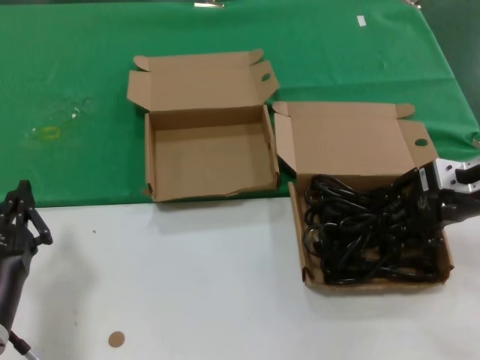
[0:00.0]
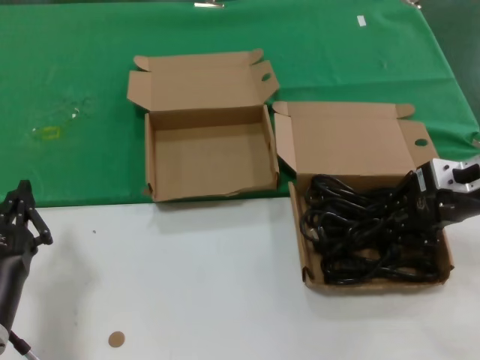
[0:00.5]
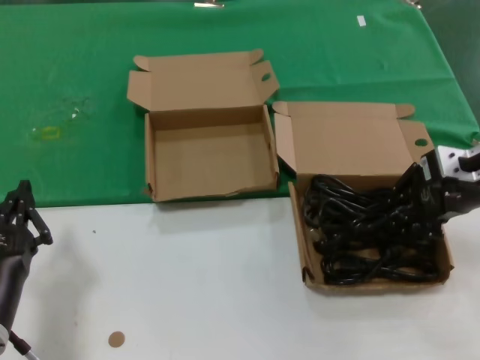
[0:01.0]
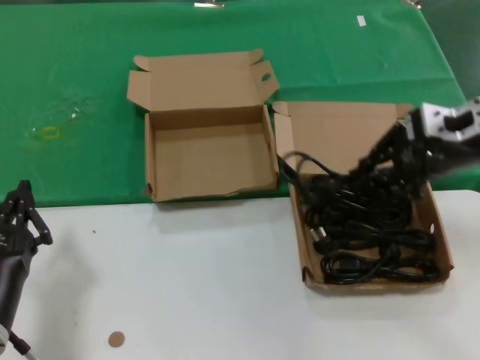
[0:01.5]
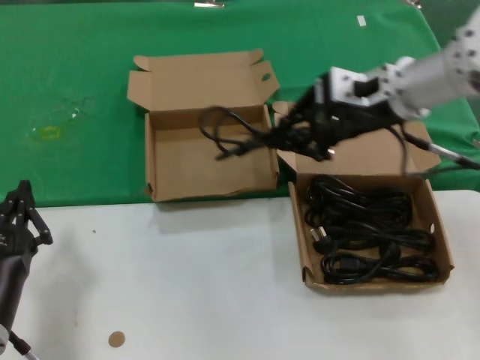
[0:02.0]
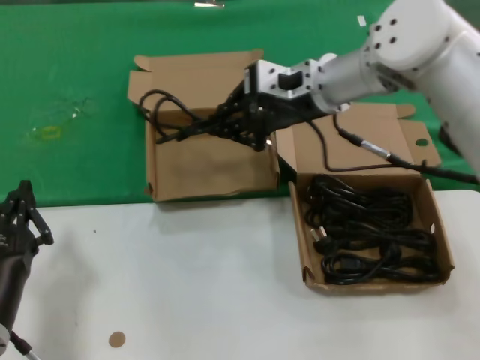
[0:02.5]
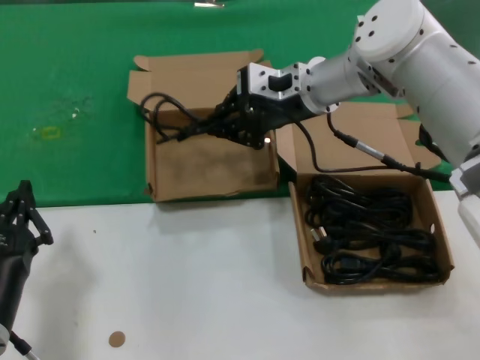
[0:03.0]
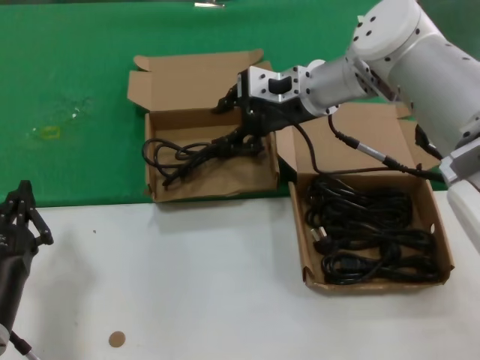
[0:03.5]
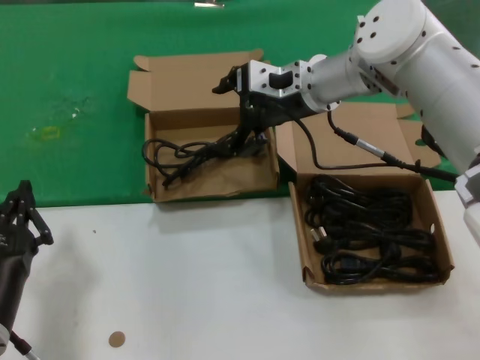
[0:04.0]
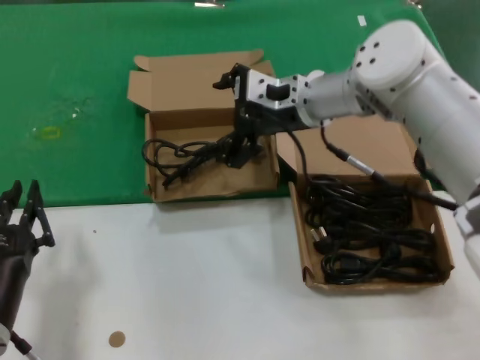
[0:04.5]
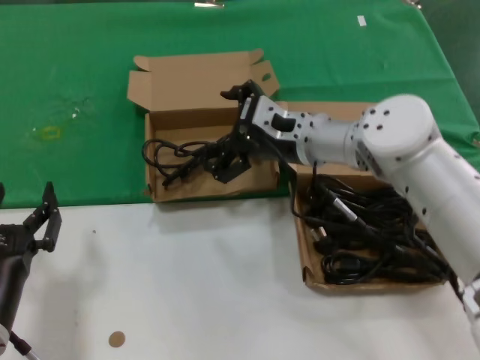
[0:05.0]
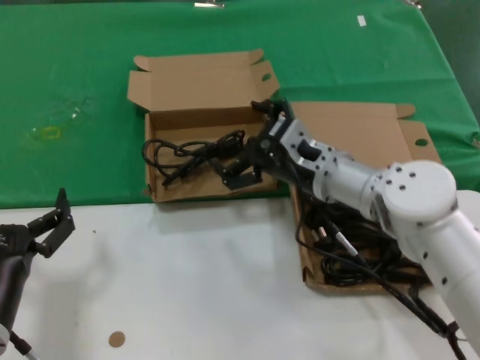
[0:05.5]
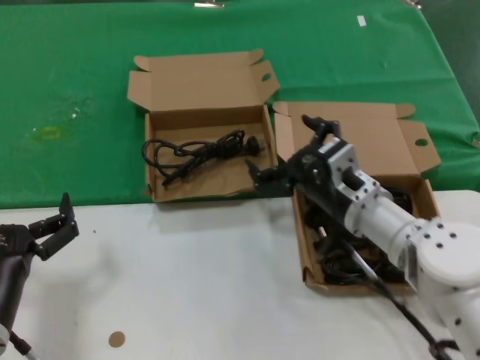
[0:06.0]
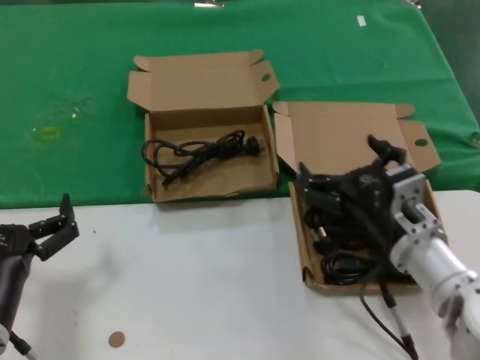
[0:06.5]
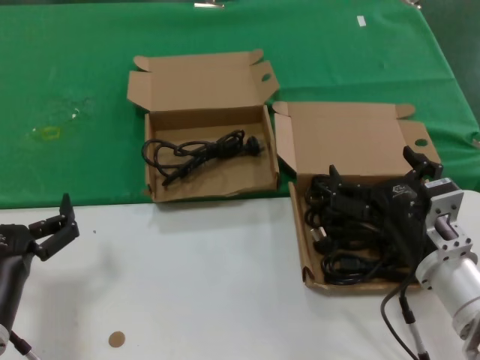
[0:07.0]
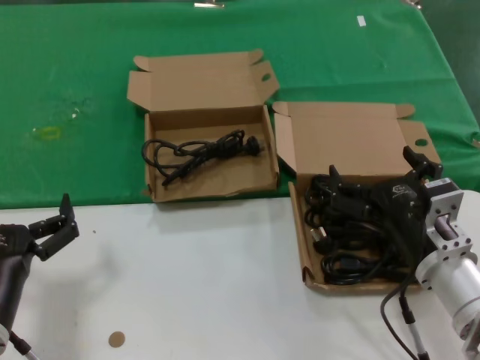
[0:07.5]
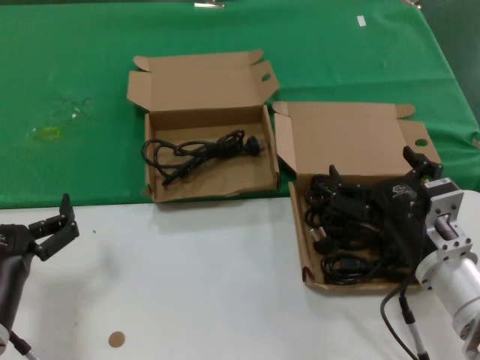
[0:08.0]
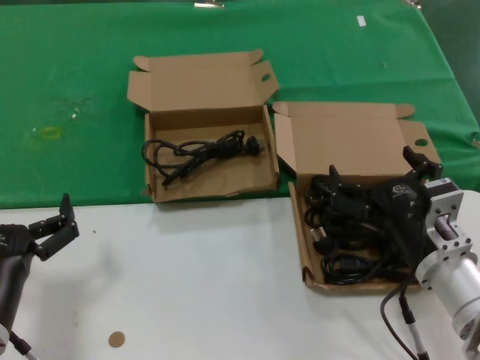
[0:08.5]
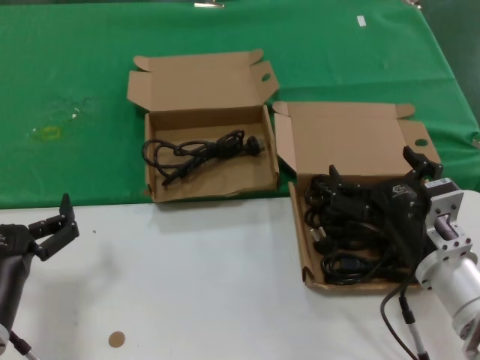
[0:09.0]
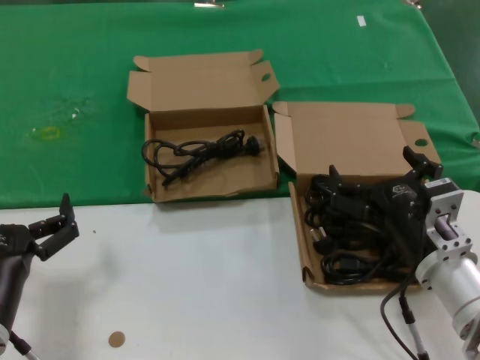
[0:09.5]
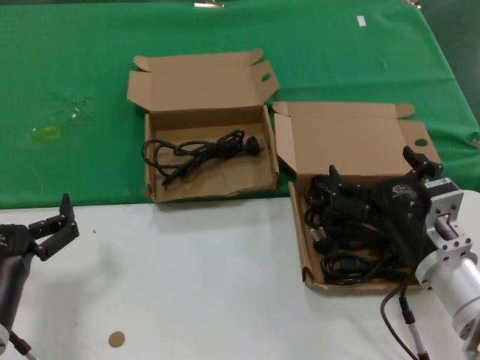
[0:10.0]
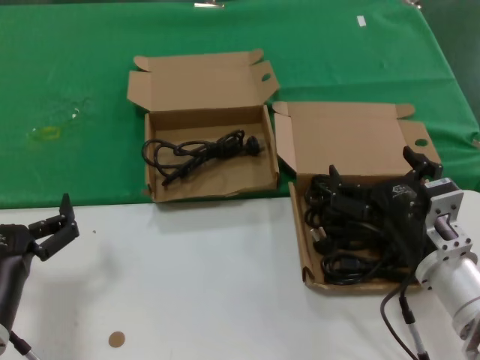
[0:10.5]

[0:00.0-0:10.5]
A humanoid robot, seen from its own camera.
Task of the whole recording: take the parts from the box containing them and put them into an empty box.
Step, 0:01.0 to 0:03.5: Place the data cable in the another box.
0:00.0 to 0:02.0: The right hand travels to the left, upward and forward by approximately 15 cm.
0:02.0 to 0:04.0: The right hand heads to the left and forward, covering some 10 cm.
0:04.0 to 0:06.5: The right hand shifts about 30 cm backward and downward.
0:06.5 to 0:08.5: There are only small adjustments of the hands.
0:08.5 to 0:10.5: The two hands keep their place.

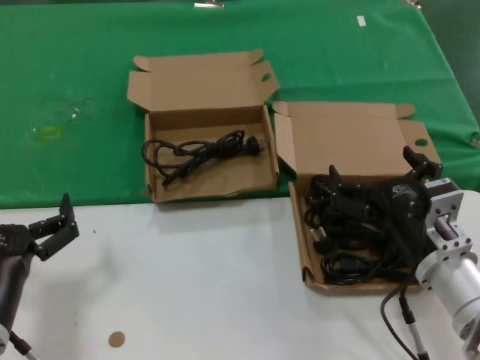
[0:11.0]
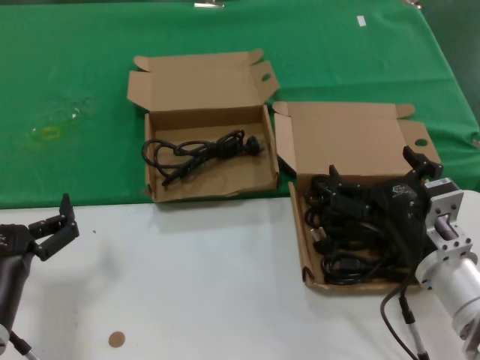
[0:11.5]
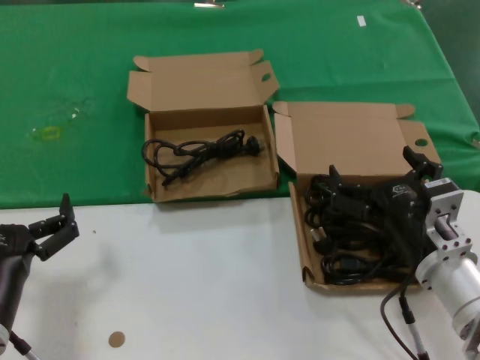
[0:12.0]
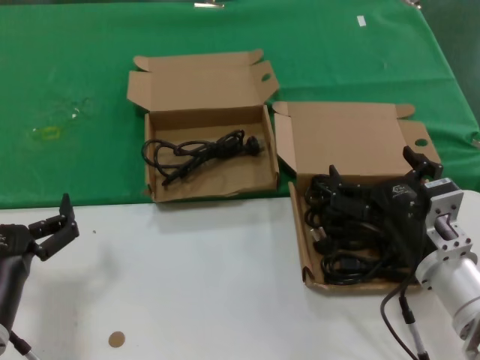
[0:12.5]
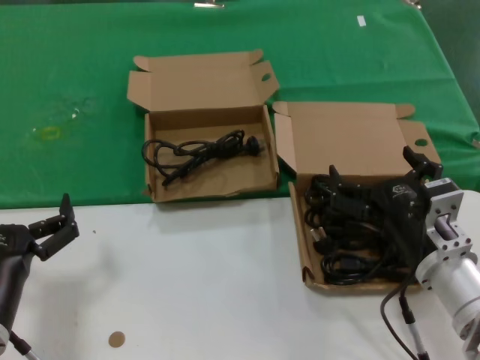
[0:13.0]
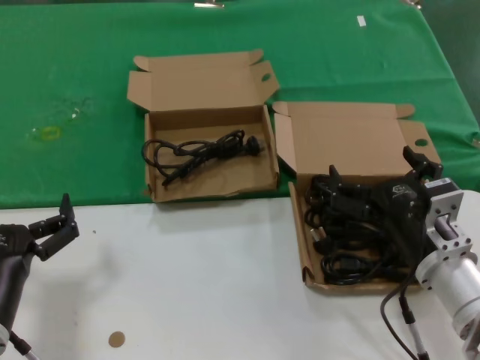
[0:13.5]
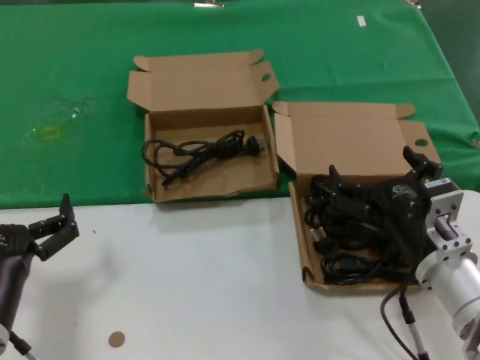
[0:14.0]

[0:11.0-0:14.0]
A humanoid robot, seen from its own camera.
Task of the whole recording: take the parts from the box containing them and put them into an empty box.
0:11.0 to 0:14.0: Neither hand changes place.

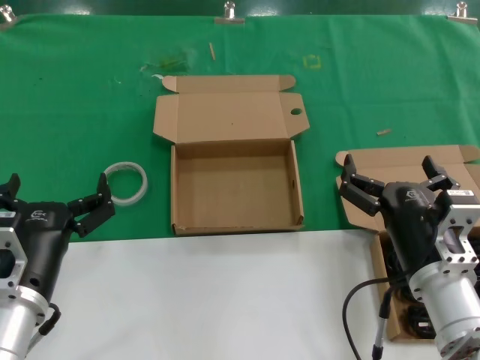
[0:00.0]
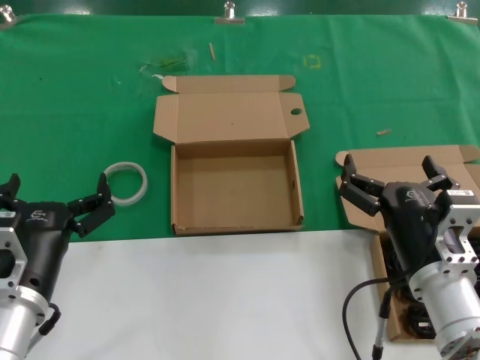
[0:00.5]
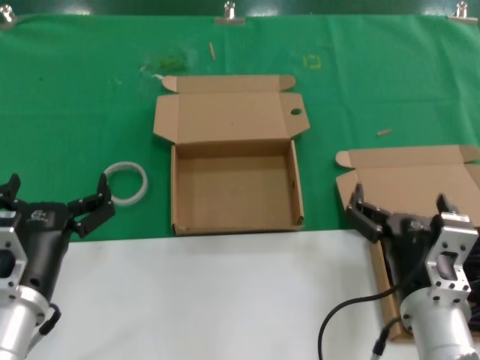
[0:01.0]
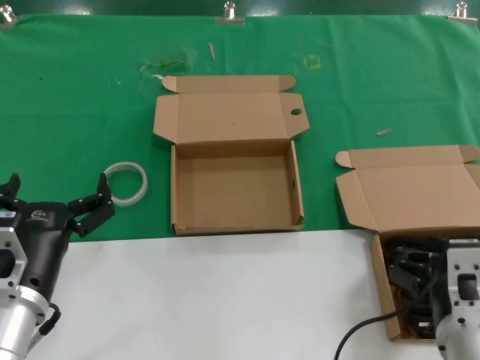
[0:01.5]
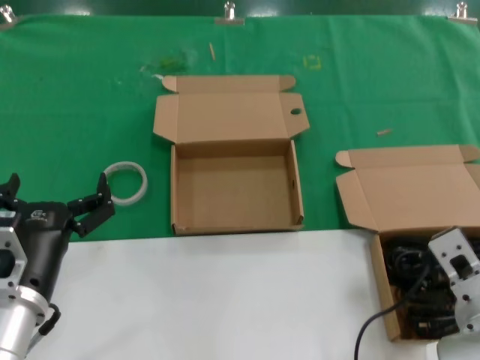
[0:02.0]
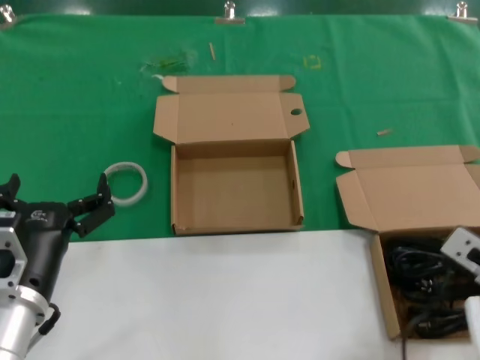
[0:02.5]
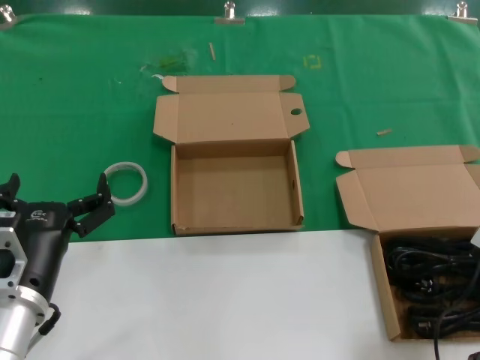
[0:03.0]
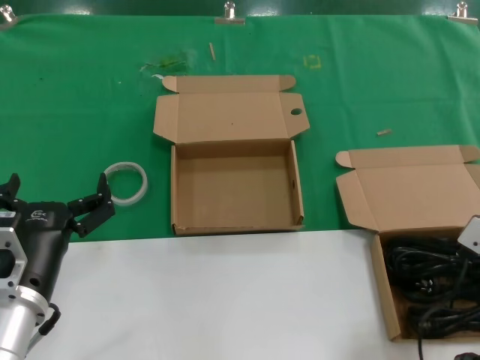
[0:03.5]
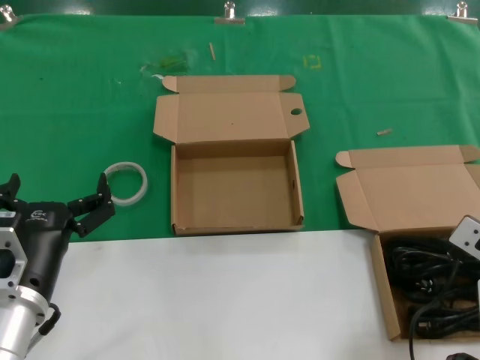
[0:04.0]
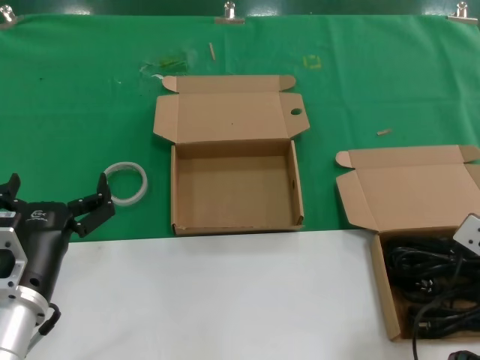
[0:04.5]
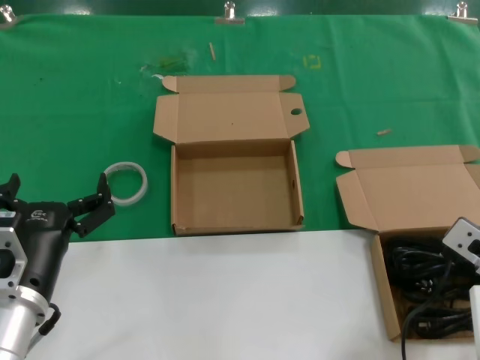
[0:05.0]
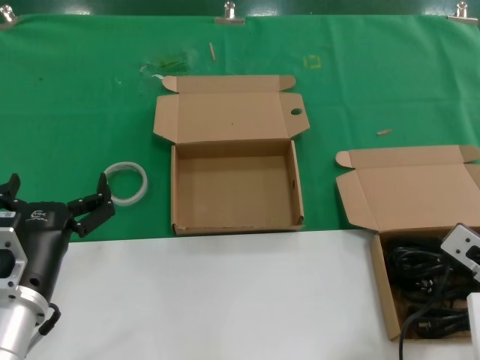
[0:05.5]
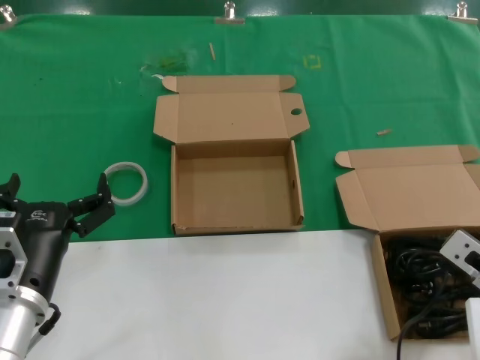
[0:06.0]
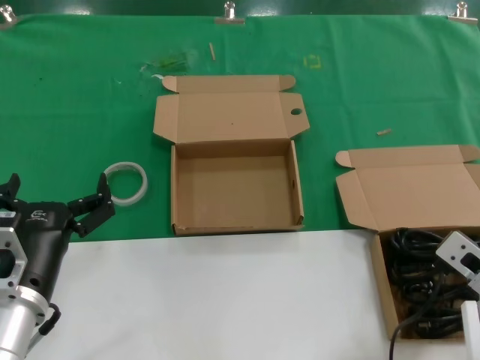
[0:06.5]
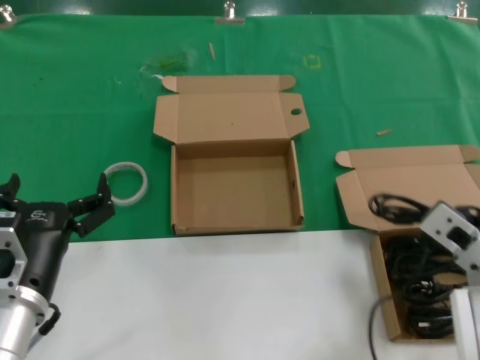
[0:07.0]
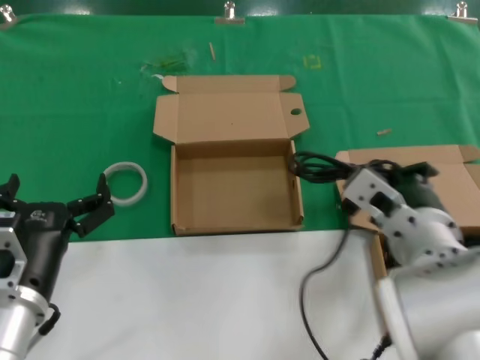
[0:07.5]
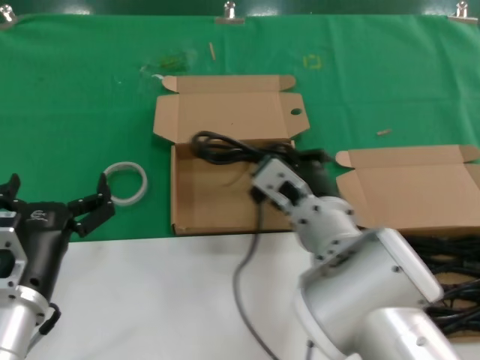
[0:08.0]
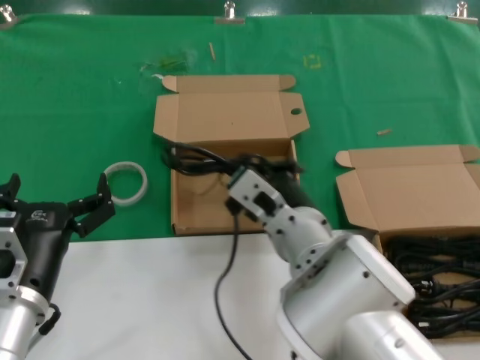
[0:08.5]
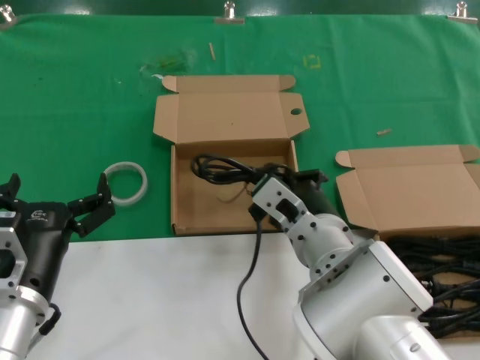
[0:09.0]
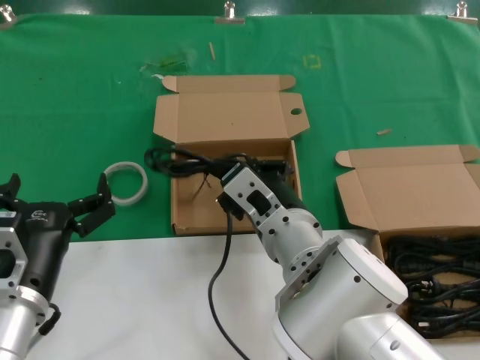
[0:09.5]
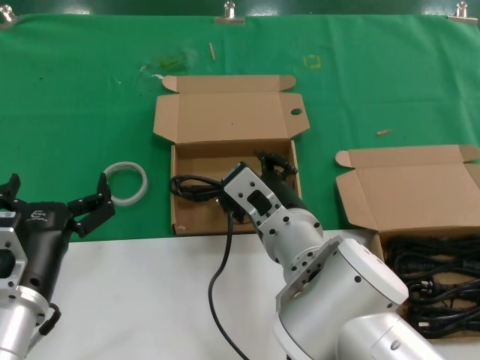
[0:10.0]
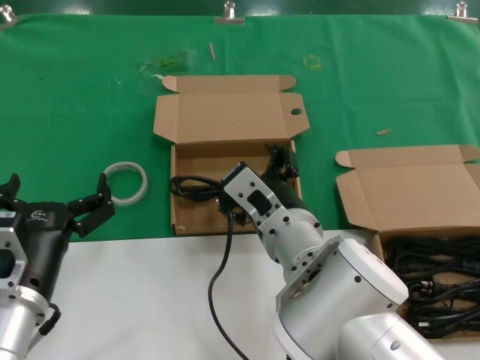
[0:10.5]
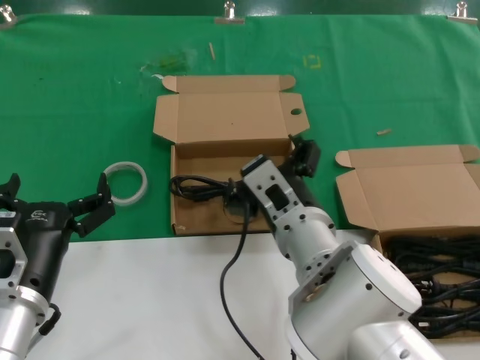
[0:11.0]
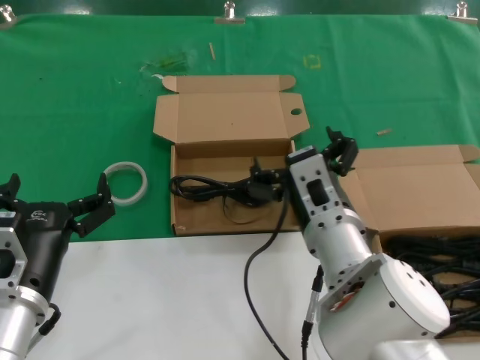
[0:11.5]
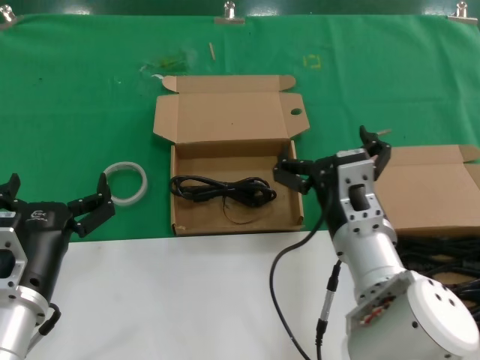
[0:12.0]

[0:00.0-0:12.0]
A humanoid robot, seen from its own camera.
Task of the whole recording: take the parts from the box containing them and put them into an empty box.
Step, 0:00.0 to 0:06.0: Grasp the data cable.
Step, 0:06.5 to 0:09.5: Place the data cable in the another box.
0:02.0 to 0:04.0: The right hand shifts some 5 cm to the right.
0:04.0 to 0:06.0: The hands make only small movements.
0:06.0 to 0:08.0: The right hand is displaced to the left by some 20 cm.
0:08.0 to 0:10.0: The hands stay close to where they were, moving slightly.
0:10.0 to 0:12.0: The right hand goes roughly 5 cm to the right.
